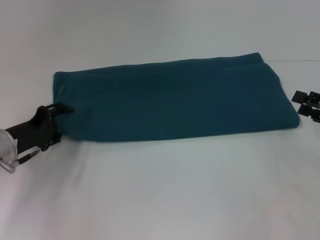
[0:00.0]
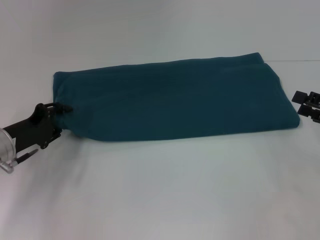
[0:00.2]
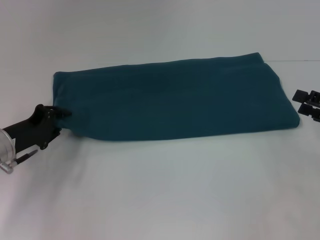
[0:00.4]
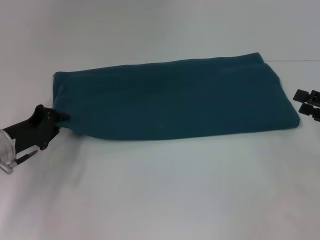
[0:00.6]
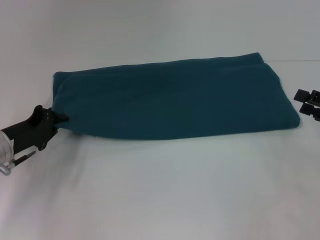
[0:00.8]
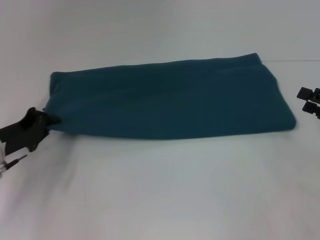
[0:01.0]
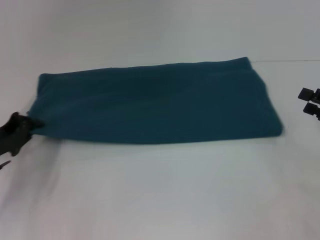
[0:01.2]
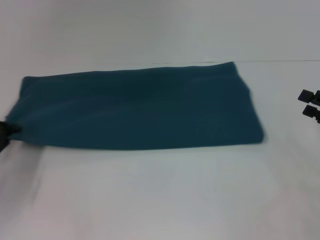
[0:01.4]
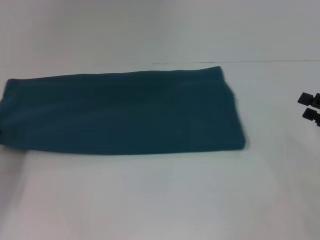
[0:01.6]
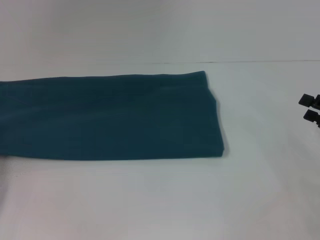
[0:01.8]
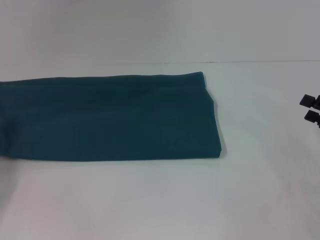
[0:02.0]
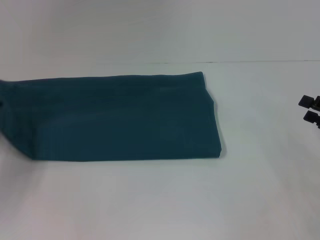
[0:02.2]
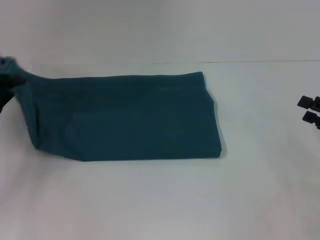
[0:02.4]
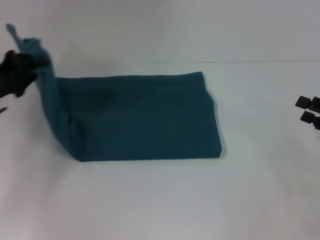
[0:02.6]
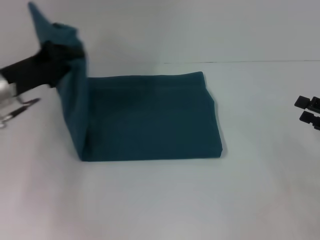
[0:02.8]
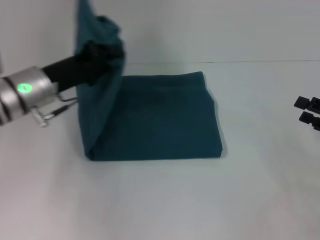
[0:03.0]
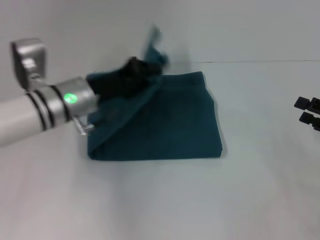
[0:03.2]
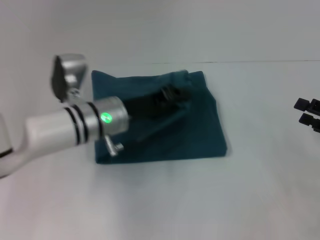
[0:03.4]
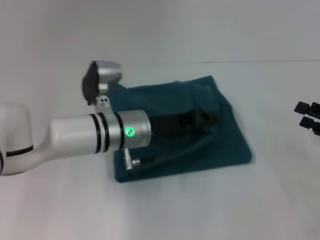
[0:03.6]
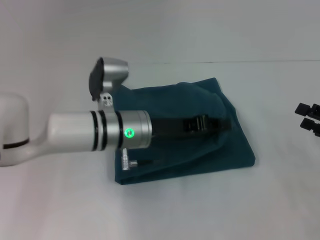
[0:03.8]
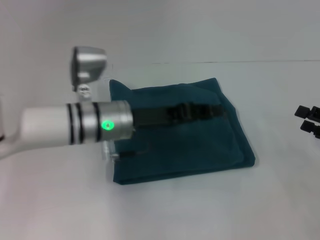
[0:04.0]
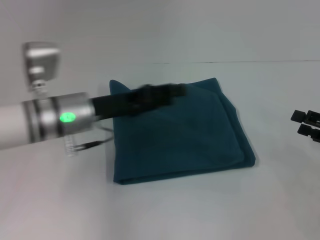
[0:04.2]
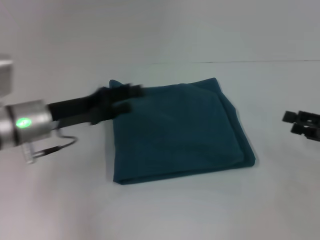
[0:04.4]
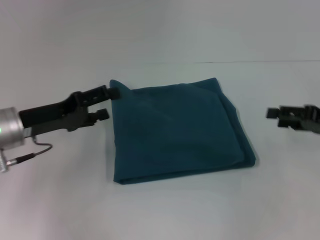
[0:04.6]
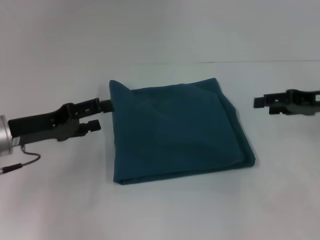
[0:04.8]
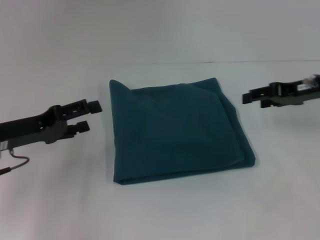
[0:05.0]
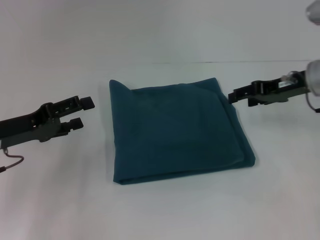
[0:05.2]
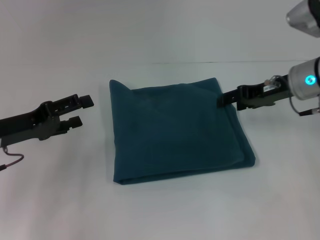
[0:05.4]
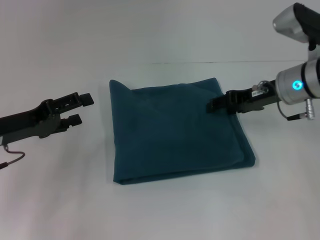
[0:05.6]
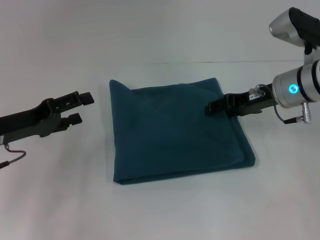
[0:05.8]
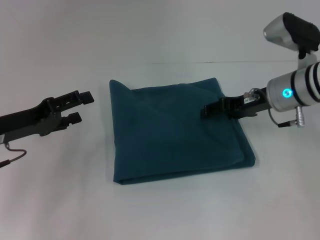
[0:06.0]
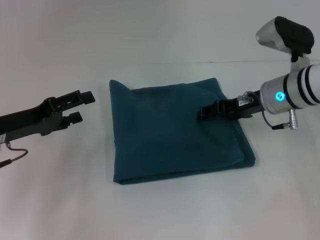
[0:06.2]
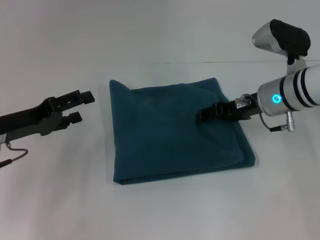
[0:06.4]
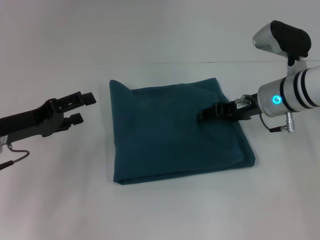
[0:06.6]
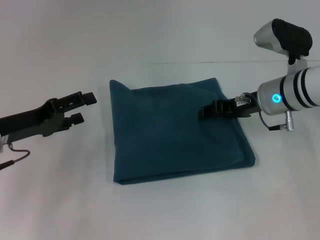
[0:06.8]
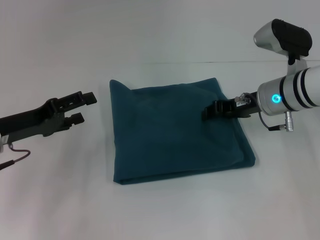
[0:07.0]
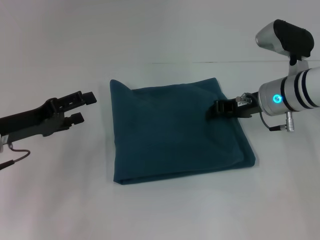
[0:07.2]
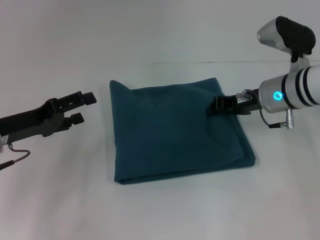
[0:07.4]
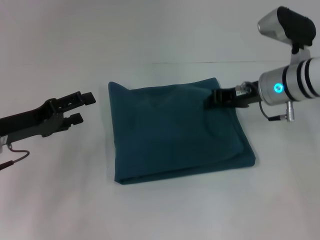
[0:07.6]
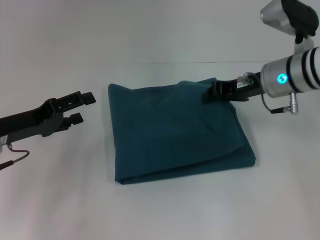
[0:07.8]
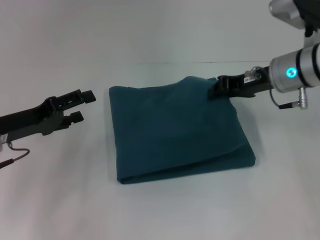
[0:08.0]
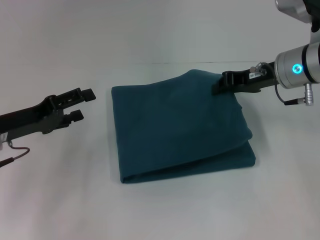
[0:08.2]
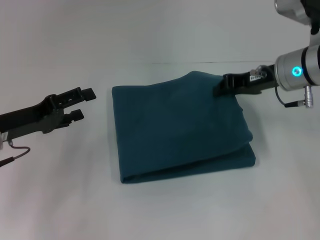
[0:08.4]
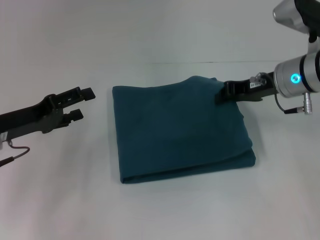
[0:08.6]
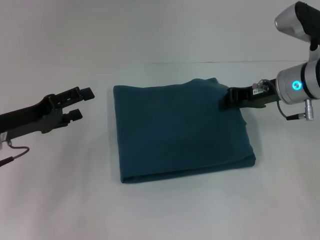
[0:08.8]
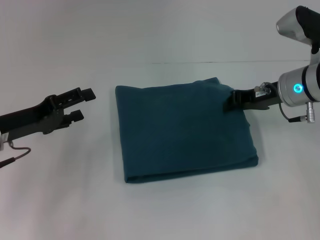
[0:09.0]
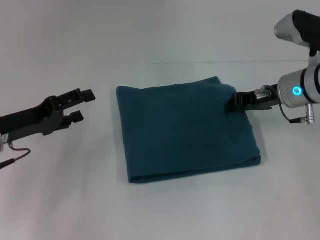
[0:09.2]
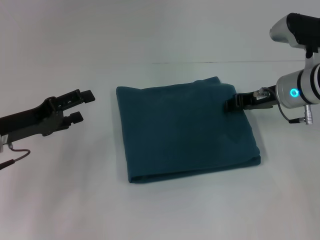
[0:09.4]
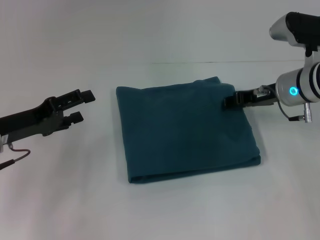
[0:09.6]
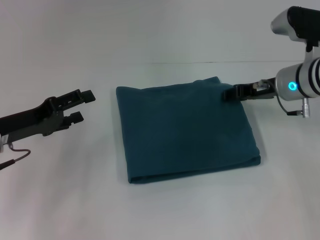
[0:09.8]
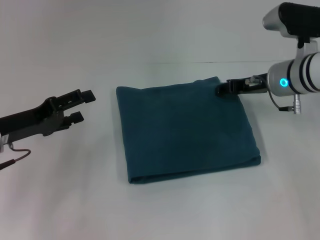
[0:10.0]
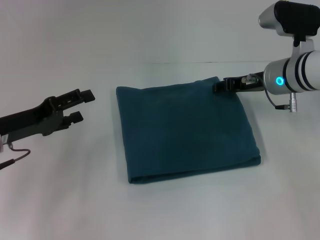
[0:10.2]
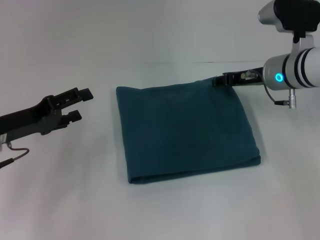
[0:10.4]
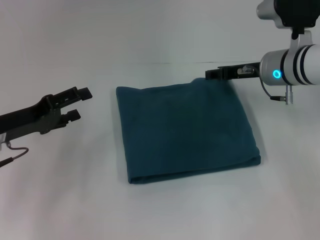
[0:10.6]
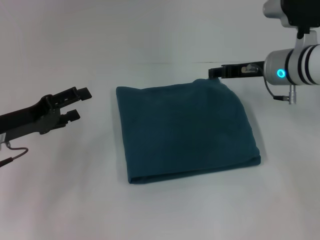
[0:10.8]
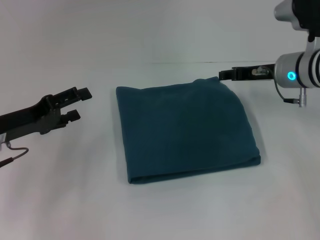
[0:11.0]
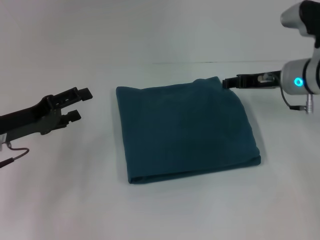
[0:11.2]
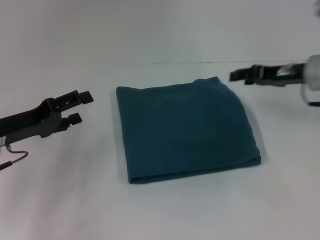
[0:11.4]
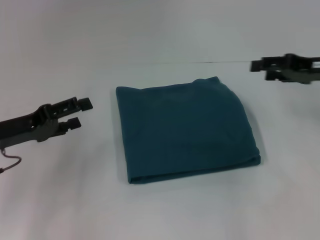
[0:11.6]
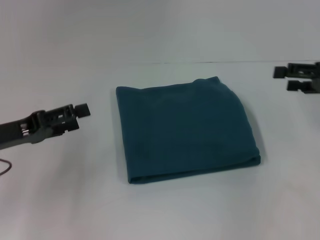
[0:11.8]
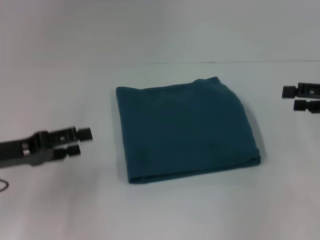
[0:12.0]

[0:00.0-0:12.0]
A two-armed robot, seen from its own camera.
Step, 0:00.0 to 0:04.0: Fold the clothes to the left.
0:00.0 to 0:01.6: The left gripper shifts about 10 cm to the left, and closes its fingers.
0:01.6 to 0:03.0: The left gripper is displaced to the right, forward and upward by about 20 cm.
0:03.0 to 0:04.4: The left gripper reaches approximately 15 cm to the right, then returns, and opens.
0:04.4 to 0:06.0: The left gripper goes roughly 5 cm to the left, and opens up. The right gripper is displaced to the left and forward by approximately 20 cm.
0:06.0 to 0:07.6: The right gripper closes.
0:07.6 to 0:09.0: There are only small adjustments of the grippers.
0:09.0 to 0:10.4: The right gripper opens up.
0:10.4 to 0:12.0: The right gripper goes about 20 cm to the right and backward.

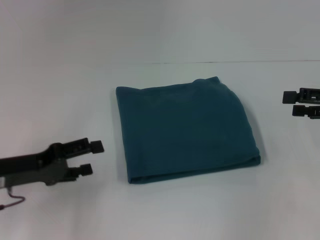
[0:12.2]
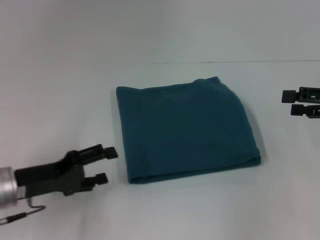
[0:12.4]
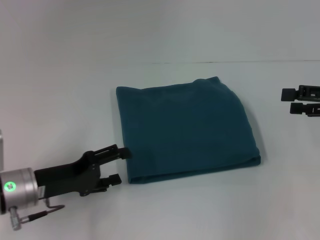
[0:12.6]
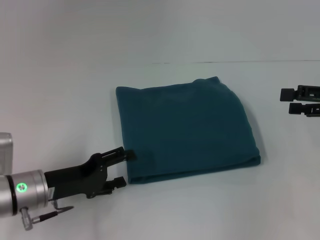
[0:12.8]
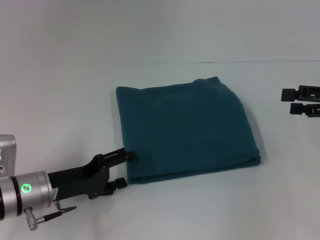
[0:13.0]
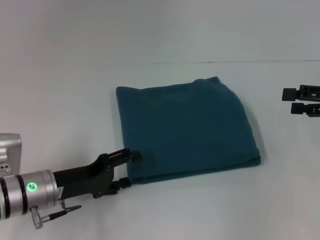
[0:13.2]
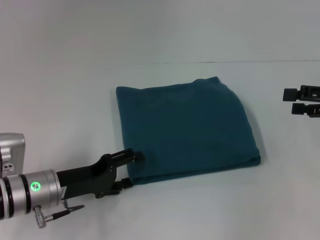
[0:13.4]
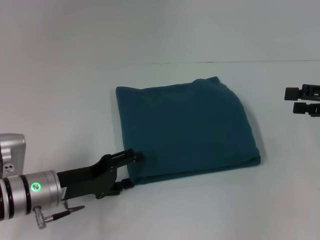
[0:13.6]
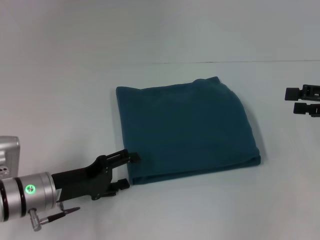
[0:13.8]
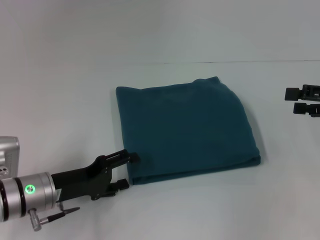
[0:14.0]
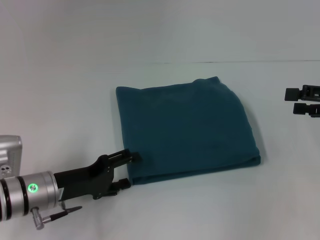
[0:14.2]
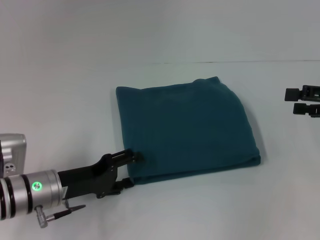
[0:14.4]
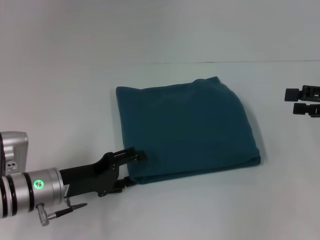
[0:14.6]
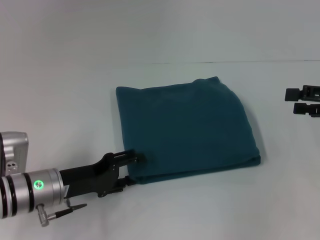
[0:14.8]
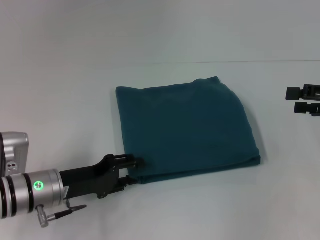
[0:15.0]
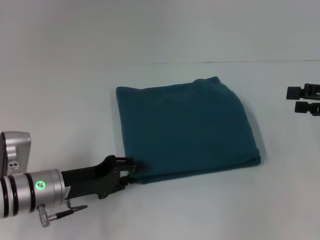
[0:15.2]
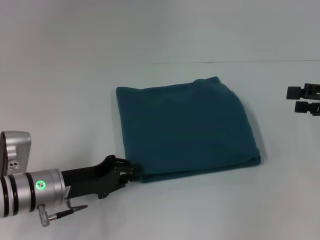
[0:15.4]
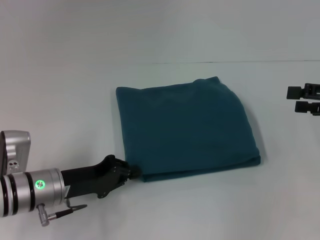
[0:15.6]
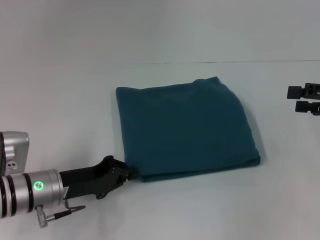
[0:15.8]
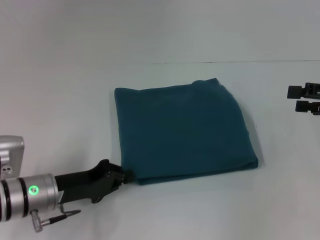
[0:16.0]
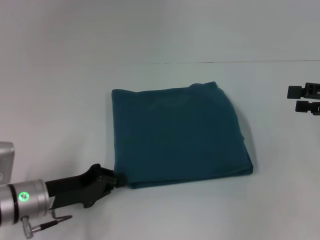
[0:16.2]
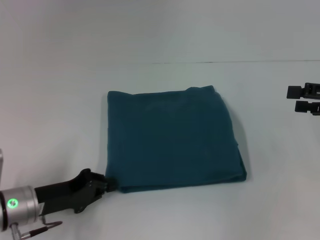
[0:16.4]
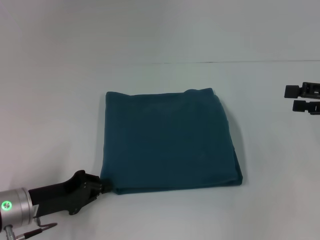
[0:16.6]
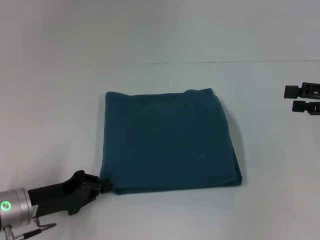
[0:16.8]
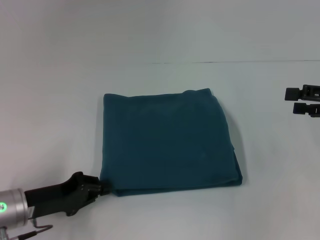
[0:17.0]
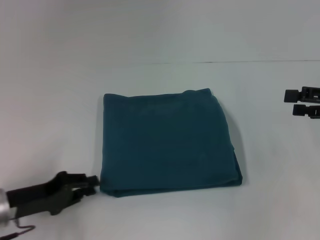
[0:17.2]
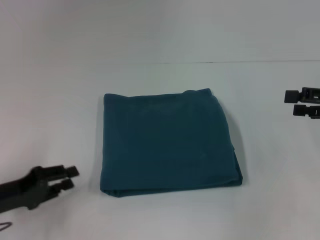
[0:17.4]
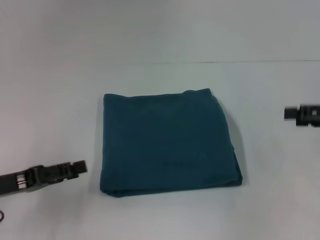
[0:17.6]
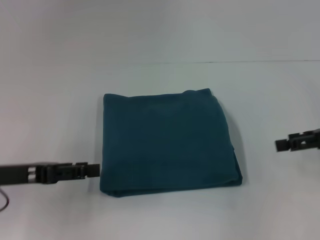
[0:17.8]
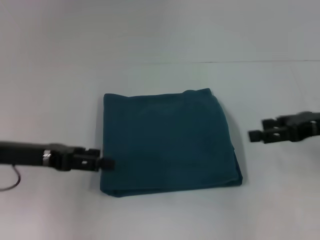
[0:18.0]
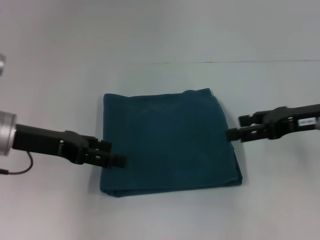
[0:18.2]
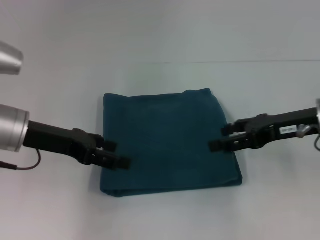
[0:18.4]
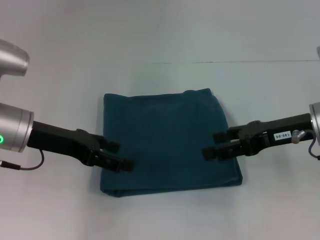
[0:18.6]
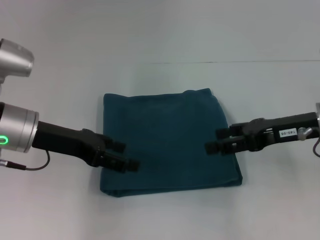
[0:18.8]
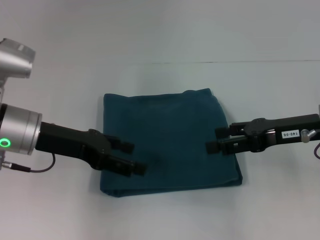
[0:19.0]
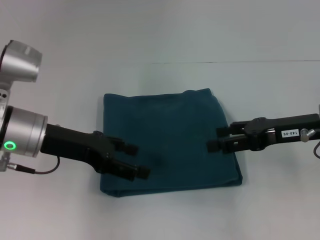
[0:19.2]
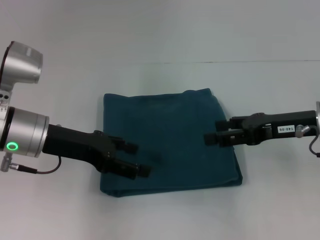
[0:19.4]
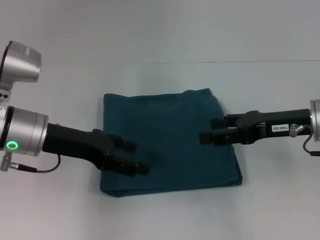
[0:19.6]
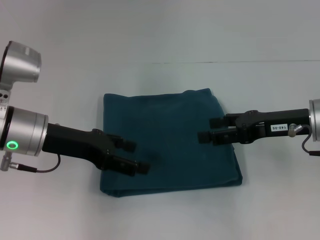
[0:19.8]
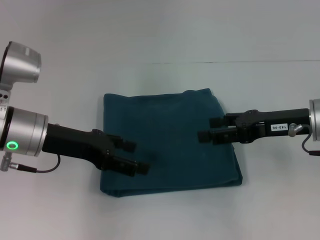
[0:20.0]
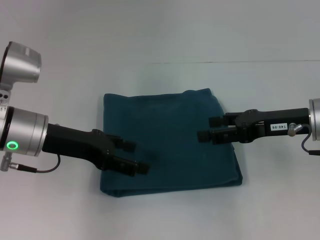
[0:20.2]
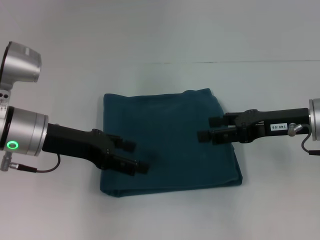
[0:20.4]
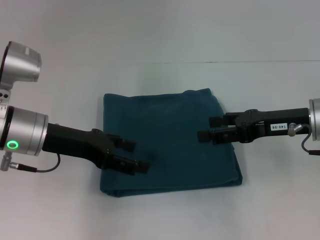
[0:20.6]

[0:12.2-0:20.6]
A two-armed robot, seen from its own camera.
0:12.2 to 0:13.6: The left gripper travels to the right and downward by some 10 cm.
0:13.6 to 0:15.0: Both grippers stay about where they are.
0:15.0 to 0:16.4: The left gripper closes.
0:16.4 to 0:17.8: The left gripper travels upward and to the left by approximately 10 cm, and opens.
0:17.8 to 0:19.2: The left gripper is displaced to the right and forward by some 10 cm, and opens its fingers, while the right gripper moves to the left, some 10 cm.
0:19.2 to 0:20.6: Both grippers stay put.

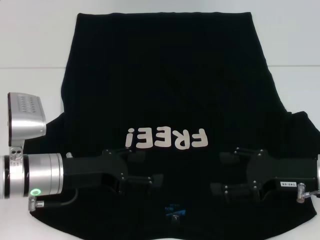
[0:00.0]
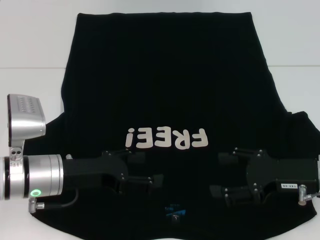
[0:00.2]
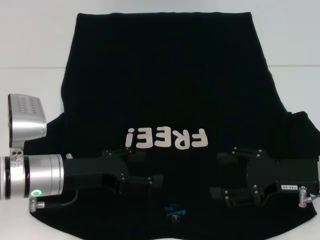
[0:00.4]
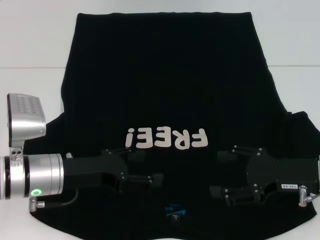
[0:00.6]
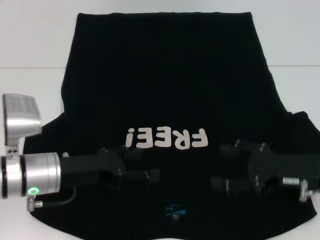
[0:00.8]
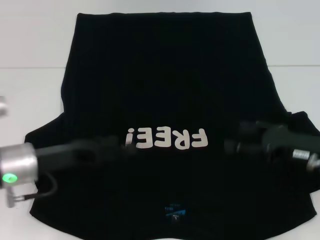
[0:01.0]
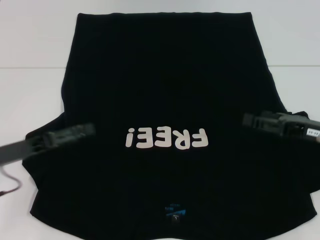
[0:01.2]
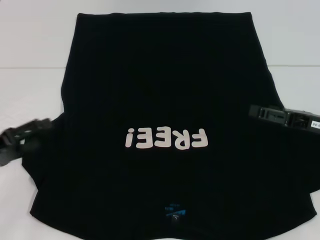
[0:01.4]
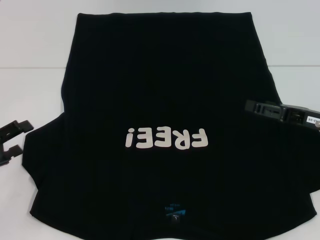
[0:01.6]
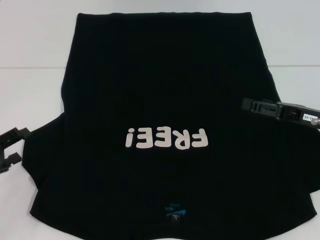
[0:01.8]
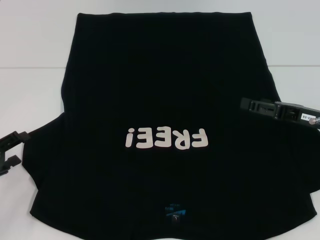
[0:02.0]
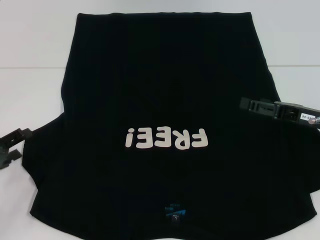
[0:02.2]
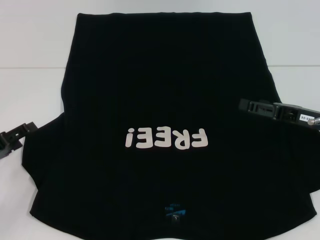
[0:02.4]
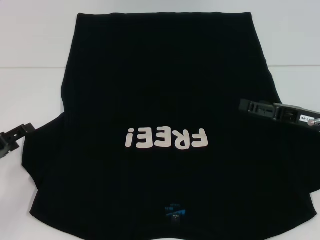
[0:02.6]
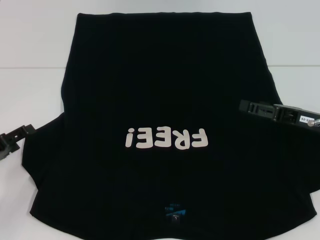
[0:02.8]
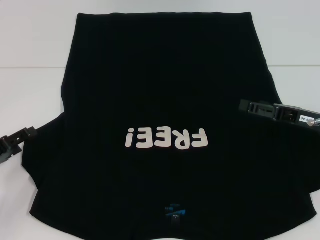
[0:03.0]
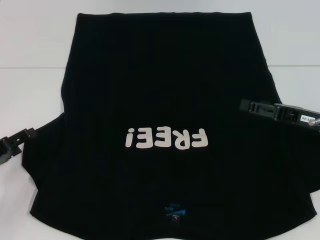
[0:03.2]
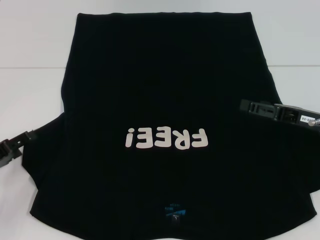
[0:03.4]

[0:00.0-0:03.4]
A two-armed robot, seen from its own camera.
0:00.0 to 0:01.6: The right gripper ends up about 5 cm from where it was. Meanwhile the left gripper shifts about 15 cm to the left.
0:01.6 to 0:03.4: There are only small adjustments of the grippers.
